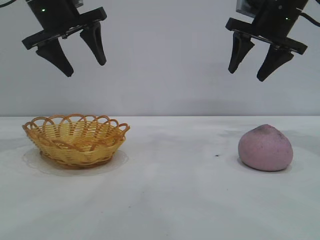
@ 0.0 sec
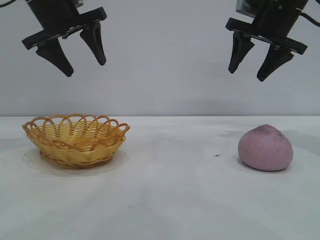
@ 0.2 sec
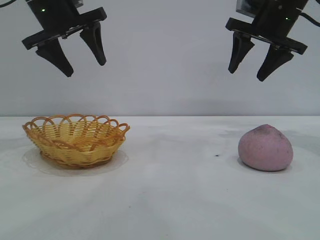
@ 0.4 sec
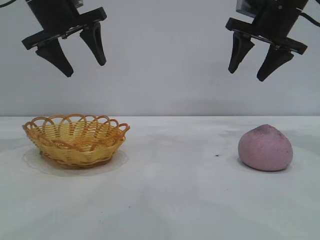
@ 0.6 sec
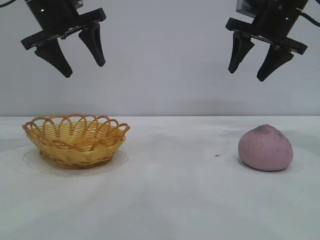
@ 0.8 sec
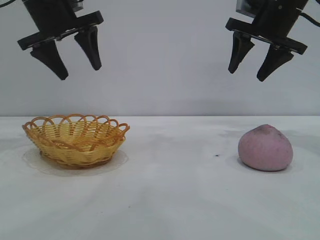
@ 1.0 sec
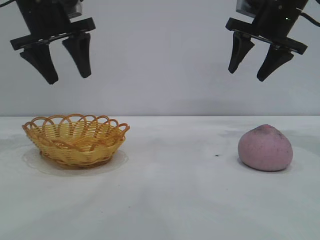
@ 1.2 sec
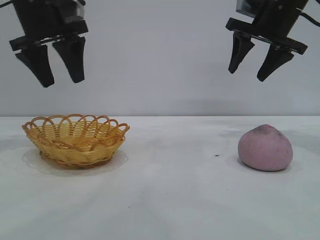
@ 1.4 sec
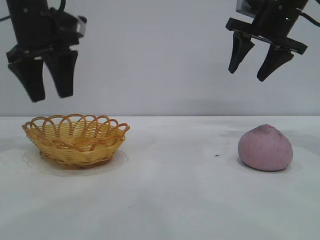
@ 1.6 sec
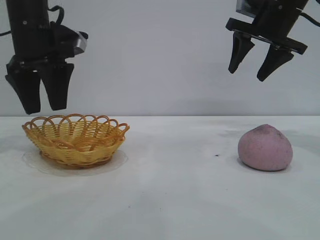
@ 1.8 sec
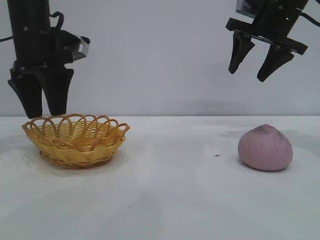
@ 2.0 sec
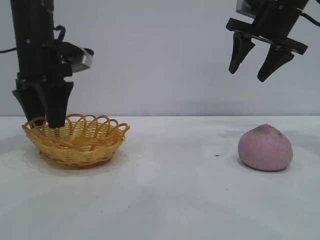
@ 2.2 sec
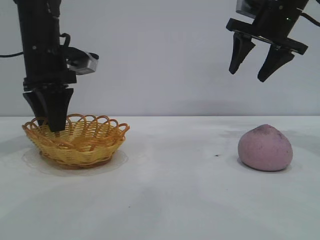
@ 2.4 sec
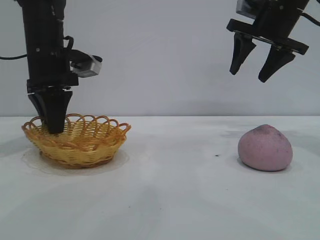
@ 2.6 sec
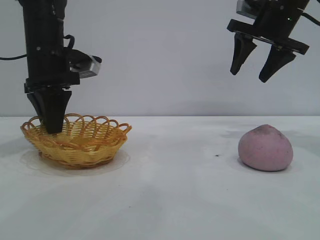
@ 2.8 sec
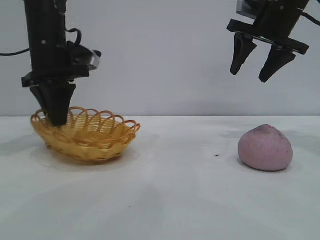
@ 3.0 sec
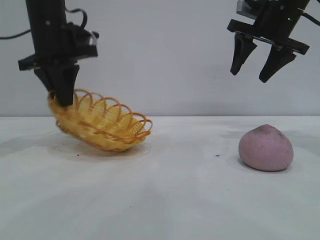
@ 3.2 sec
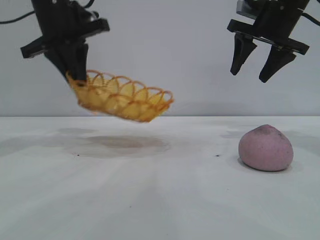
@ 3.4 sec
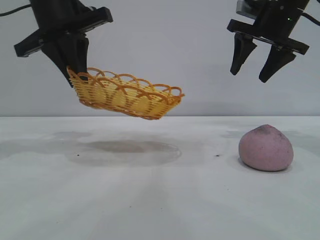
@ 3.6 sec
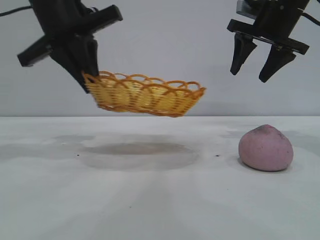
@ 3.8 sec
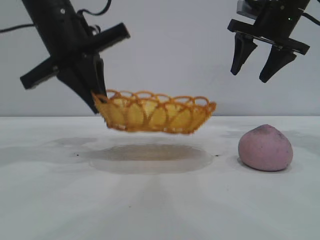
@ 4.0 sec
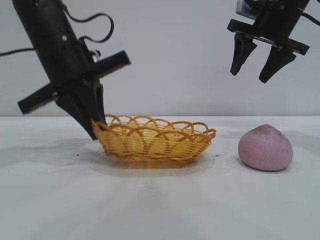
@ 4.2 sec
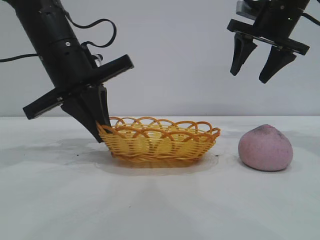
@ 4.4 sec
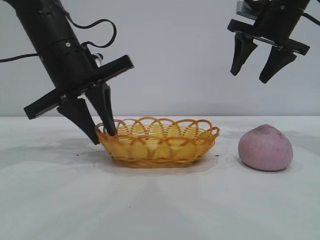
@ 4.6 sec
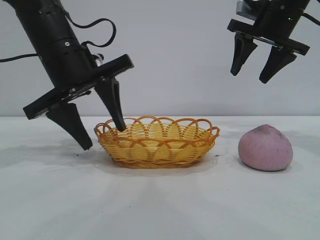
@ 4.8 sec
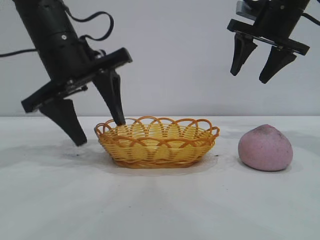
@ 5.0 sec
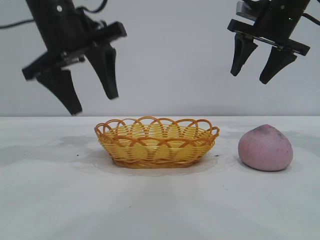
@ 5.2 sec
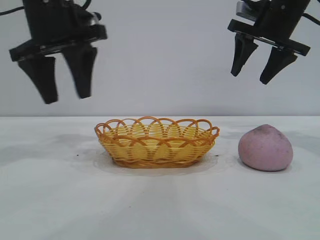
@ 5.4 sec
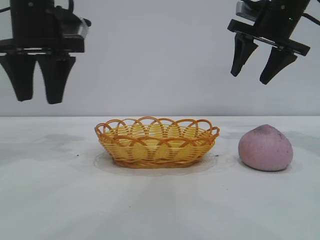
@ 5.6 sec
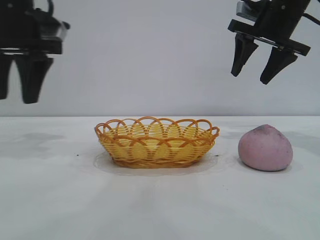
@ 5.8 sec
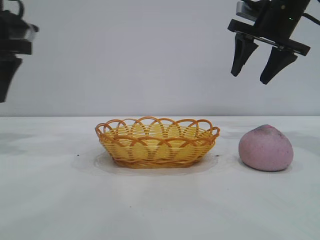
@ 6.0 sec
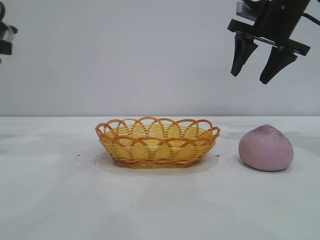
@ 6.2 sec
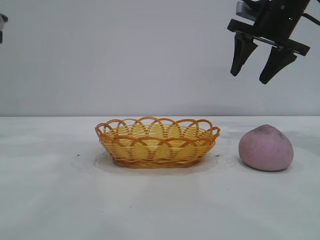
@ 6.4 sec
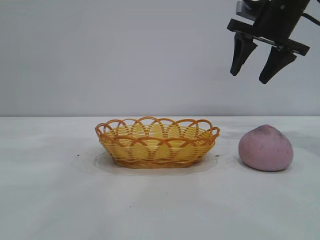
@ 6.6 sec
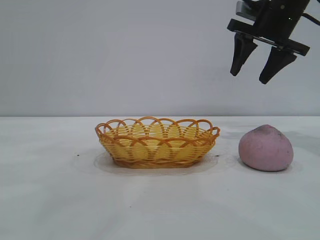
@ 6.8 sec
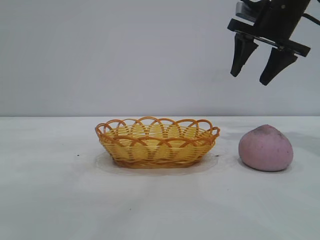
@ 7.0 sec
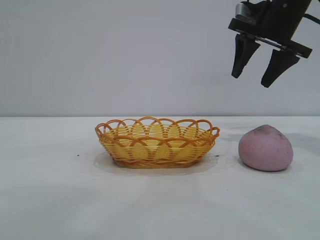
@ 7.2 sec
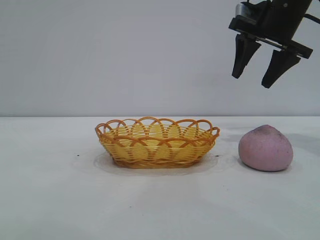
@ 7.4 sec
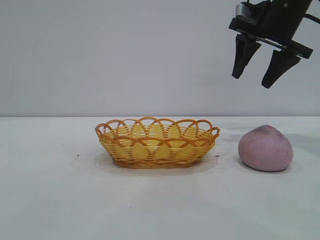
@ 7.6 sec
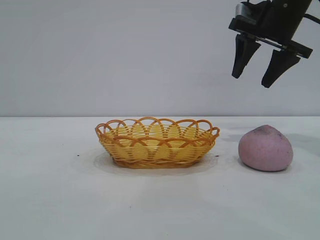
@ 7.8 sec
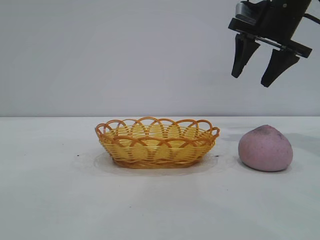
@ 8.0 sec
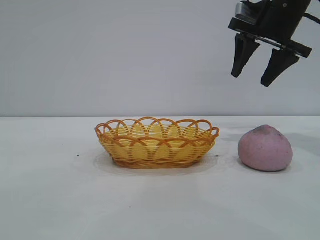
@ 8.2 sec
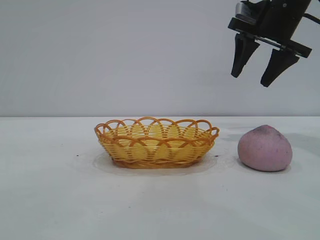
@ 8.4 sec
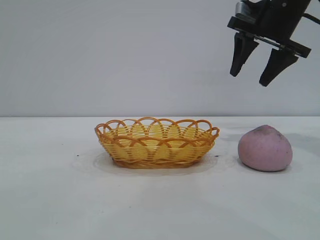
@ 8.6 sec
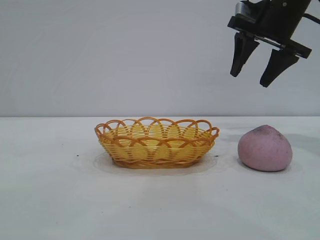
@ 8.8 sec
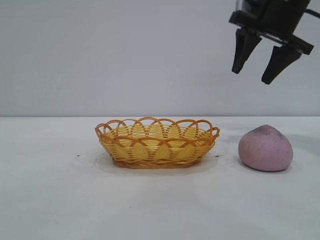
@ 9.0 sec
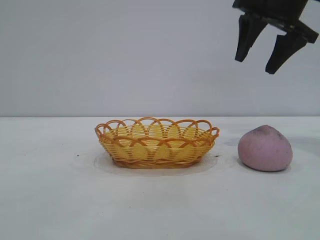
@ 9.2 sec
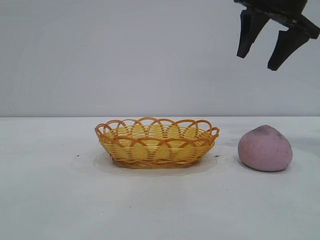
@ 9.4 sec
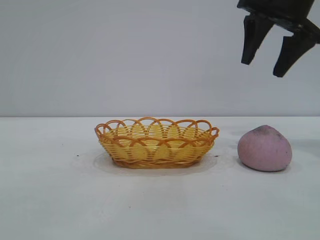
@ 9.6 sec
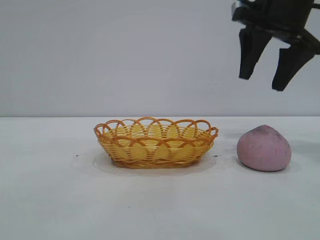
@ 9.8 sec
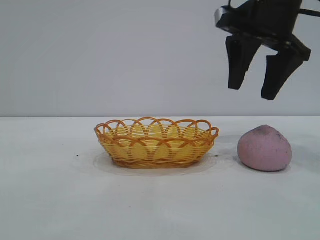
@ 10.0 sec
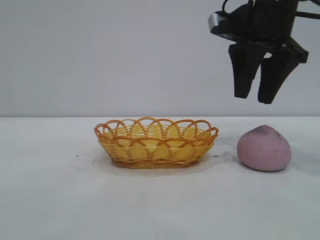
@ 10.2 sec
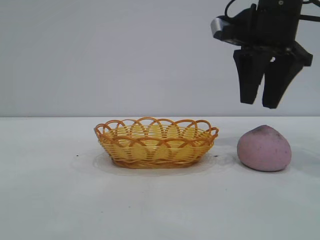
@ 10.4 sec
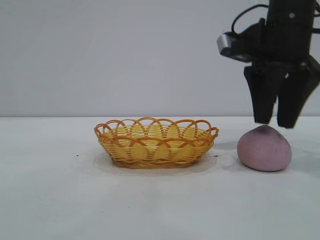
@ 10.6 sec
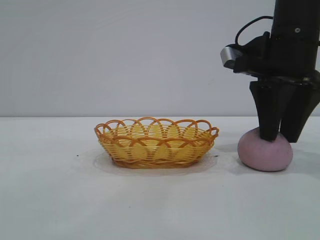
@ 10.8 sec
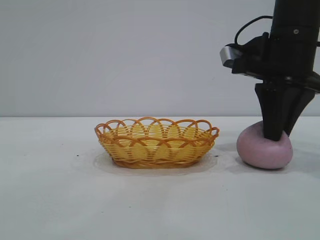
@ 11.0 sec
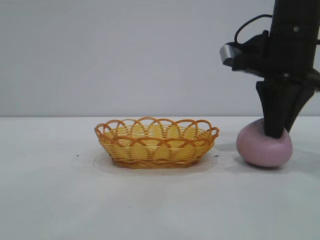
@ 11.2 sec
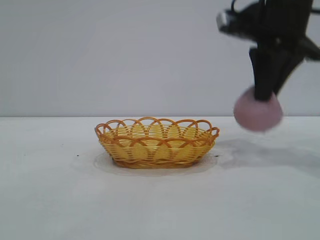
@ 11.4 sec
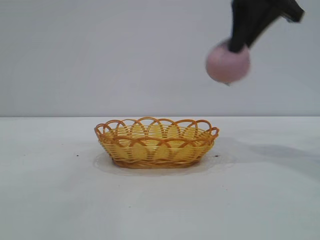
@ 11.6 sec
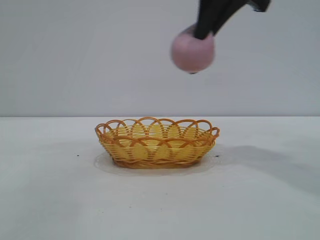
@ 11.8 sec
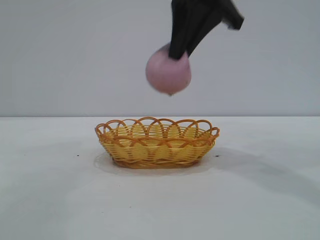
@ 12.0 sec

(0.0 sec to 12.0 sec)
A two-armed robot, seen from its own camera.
Task of the whole recording: pick up the peach and put it into the basket.
Step, 0.0 sec - 5.2 sec: Move the basket to the center of view.
Step, 5.4 sec - 11.2 sec: Pick up the peach.

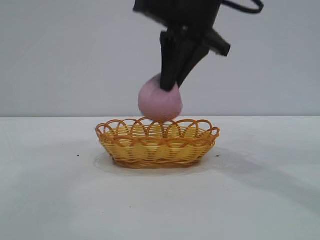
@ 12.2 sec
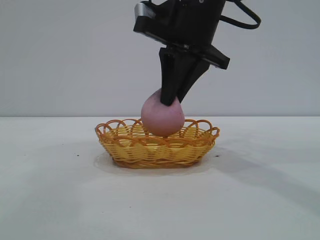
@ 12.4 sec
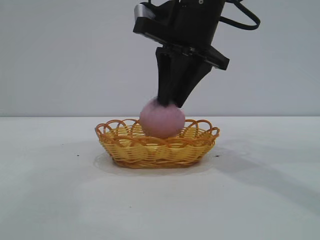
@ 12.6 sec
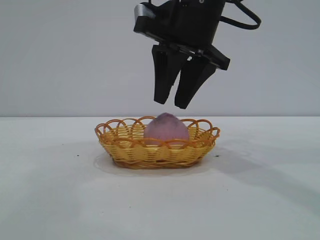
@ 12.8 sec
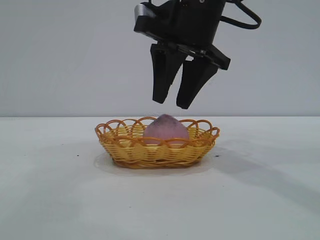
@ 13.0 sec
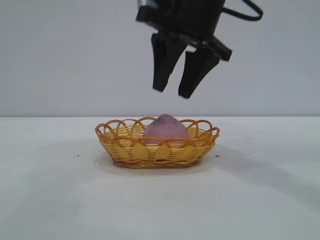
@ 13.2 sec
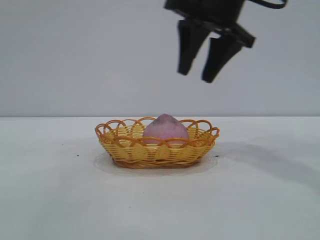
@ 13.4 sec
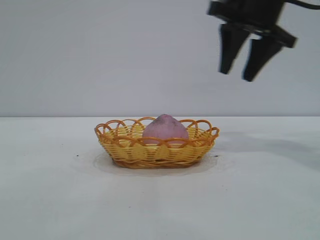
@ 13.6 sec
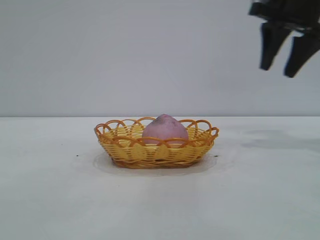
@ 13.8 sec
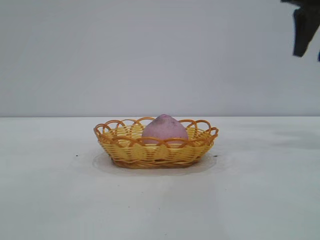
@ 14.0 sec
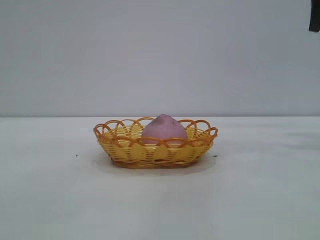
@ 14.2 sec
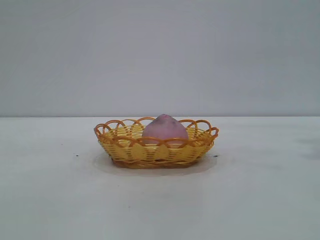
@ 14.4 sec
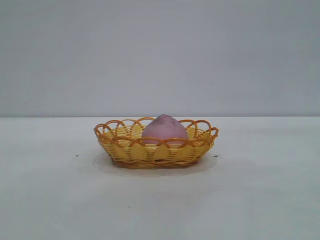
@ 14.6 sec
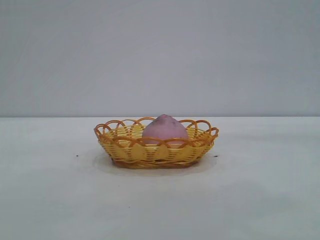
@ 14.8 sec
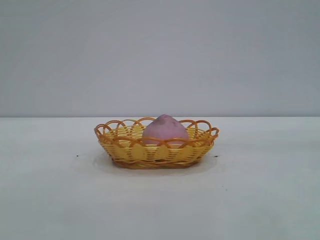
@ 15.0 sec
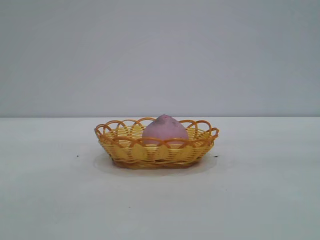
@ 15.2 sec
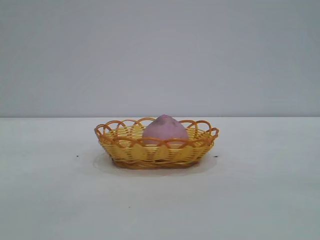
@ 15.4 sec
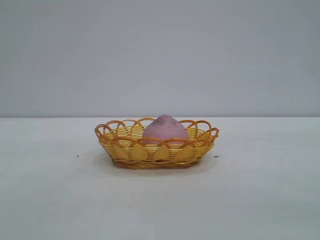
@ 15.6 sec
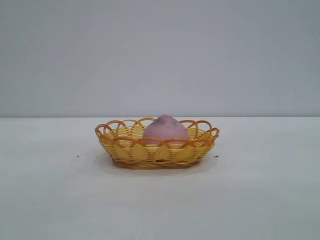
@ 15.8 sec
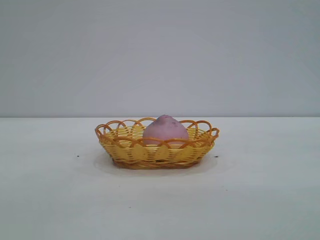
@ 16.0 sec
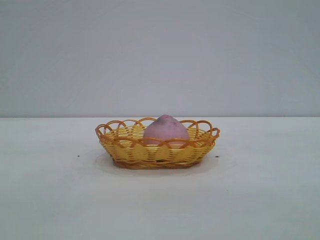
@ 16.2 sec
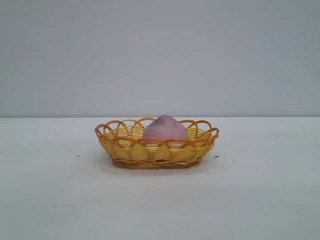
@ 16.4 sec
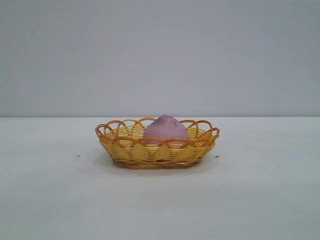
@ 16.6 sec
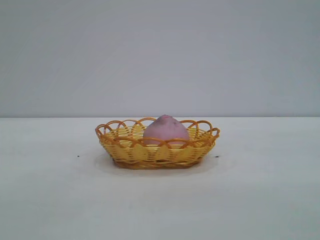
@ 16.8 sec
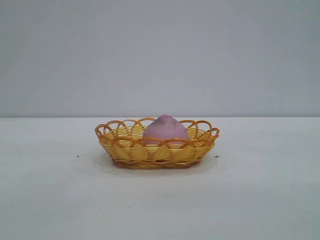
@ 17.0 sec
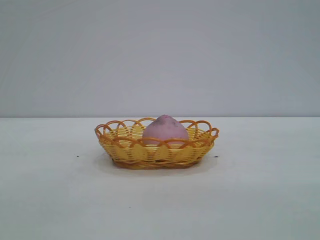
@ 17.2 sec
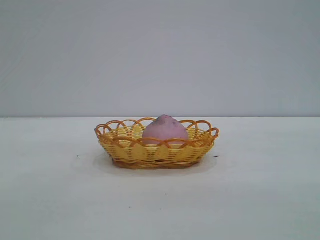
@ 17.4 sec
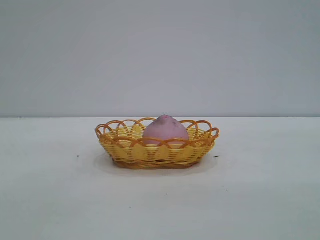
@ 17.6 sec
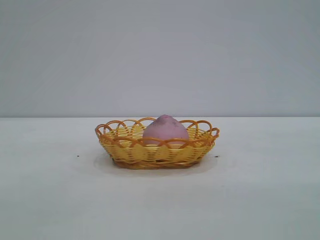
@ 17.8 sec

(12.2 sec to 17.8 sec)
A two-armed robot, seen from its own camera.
Task of the whole recording: pick up the peach and put it into the basket.
Step, 12.2 sec - 13.2 sec: place the peach into the basket.
